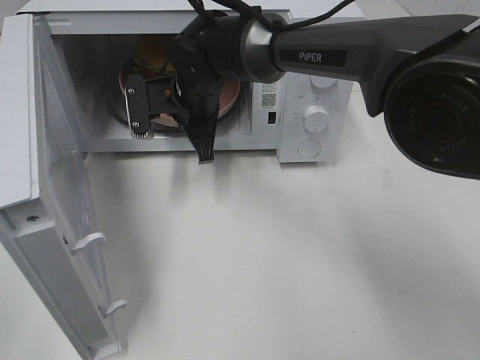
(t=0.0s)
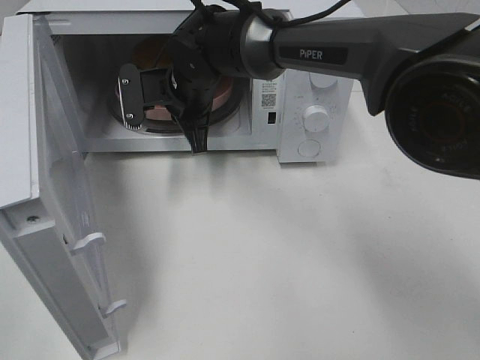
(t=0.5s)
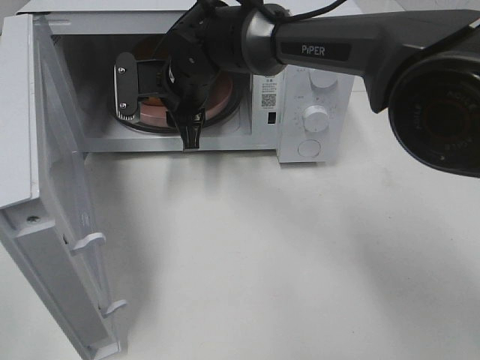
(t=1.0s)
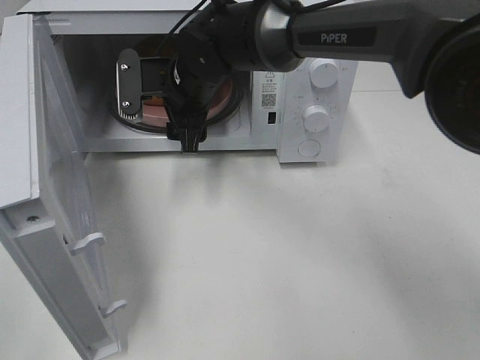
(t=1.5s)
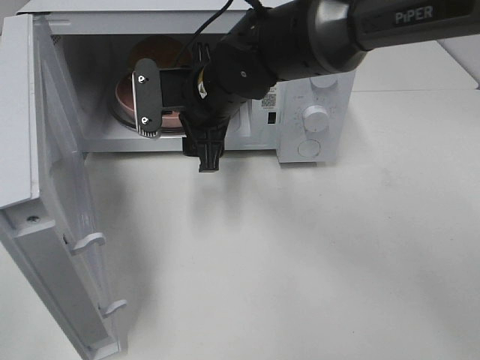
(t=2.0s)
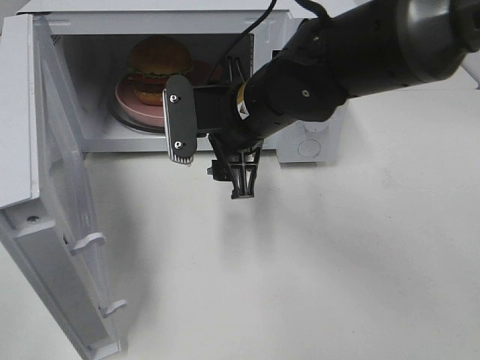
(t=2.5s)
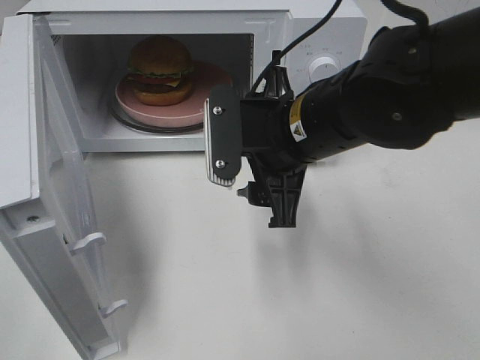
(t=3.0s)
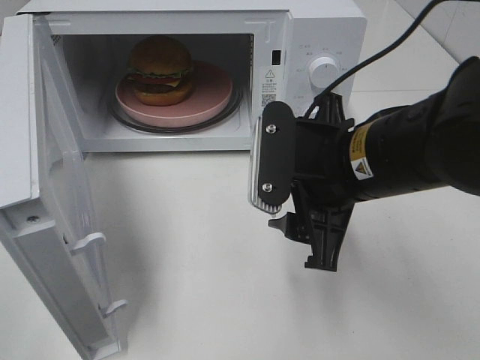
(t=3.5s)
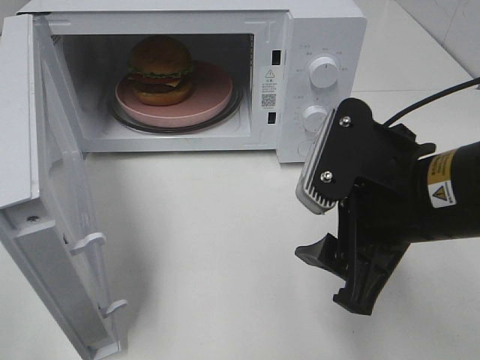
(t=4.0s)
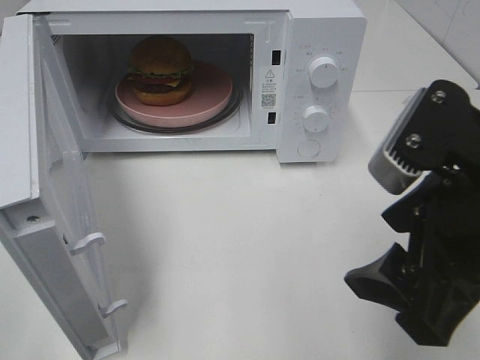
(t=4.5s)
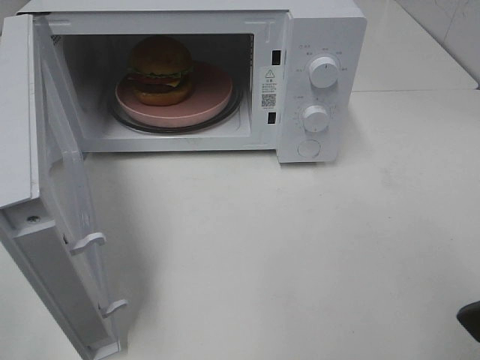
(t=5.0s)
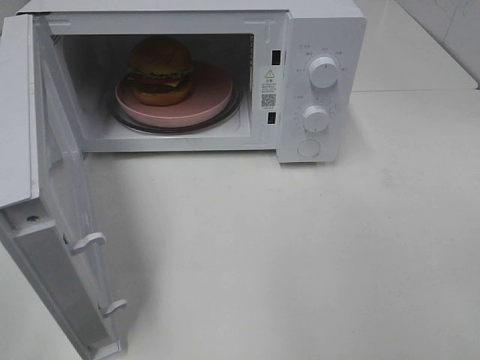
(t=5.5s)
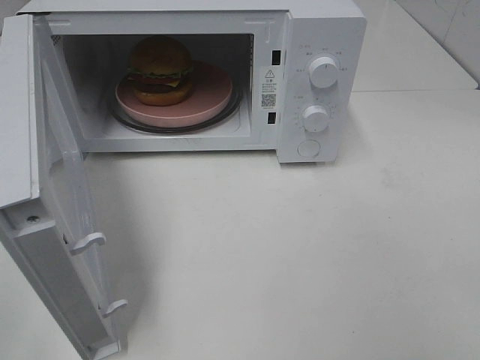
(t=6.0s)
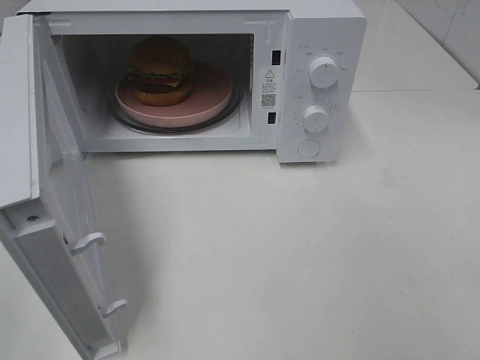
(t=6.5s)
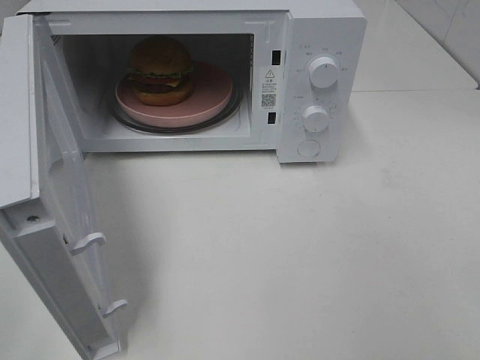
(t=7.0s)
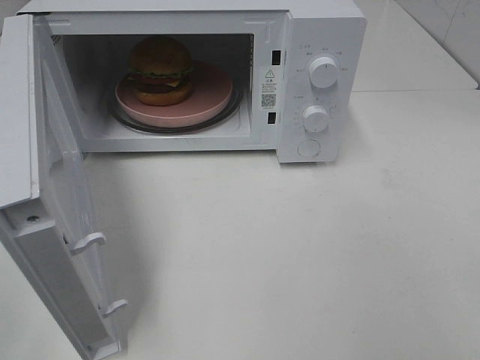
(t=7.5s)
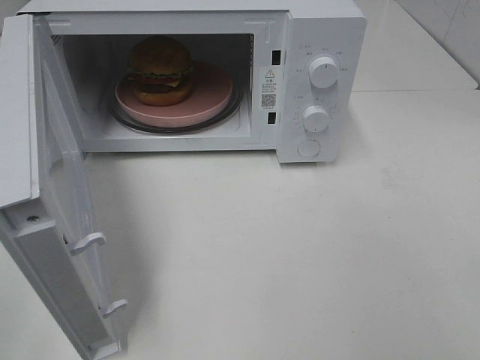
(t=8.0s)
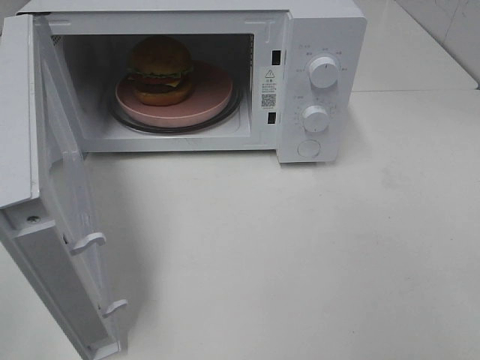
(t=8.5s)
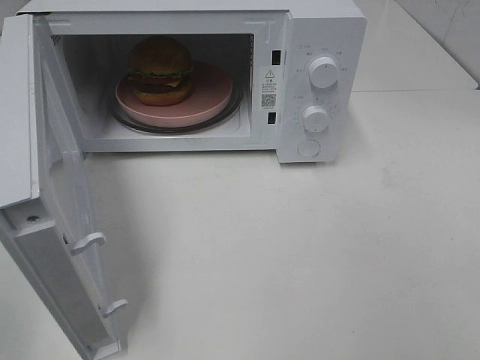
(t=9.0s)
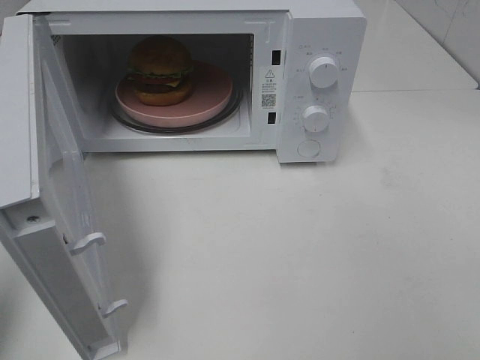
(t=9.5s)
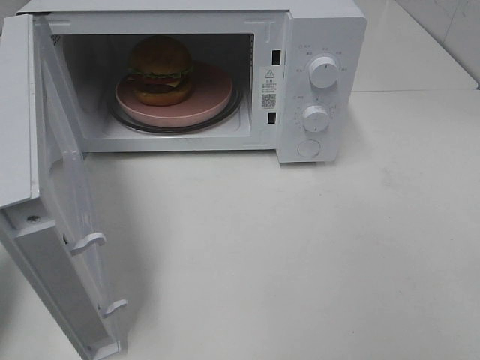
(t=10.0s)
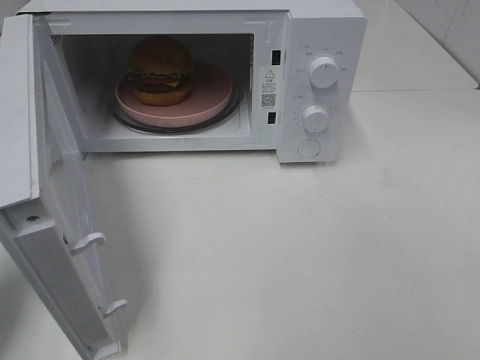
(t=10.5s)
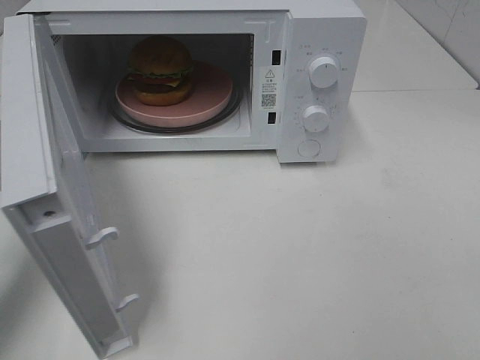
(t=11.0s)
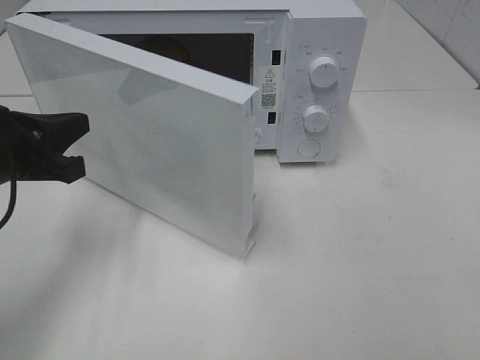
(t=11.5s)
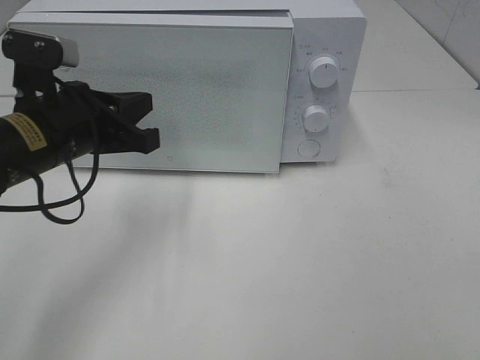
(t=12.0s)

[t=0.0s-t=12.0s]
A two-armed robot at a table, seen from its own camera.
Task of the whole recording: Heat the burger.
t=0.0s to t=2.0s: The right gripper goes some 5 cm backward, and opens up.
t=2.0s to t=4.0s: The right gripper shifts about 25 cm backward and to the right.
t=4.0s to t=6.0s: The right gripper goes approximately 20 cm backward, to the right and upward.
t=8.0s to t=10.0s: The left gripper goes approximately 15 cm forward, and closes its fingers.
t=10.0s to t=12.0s: The left gripper heads to the right and forward, covering approximately 20 cm.

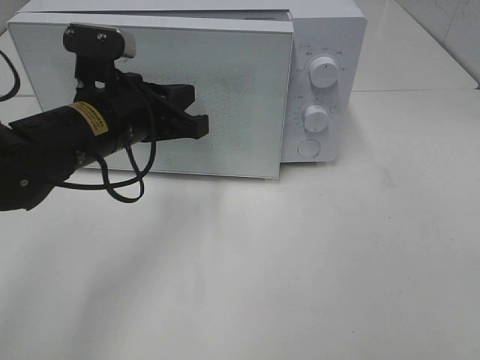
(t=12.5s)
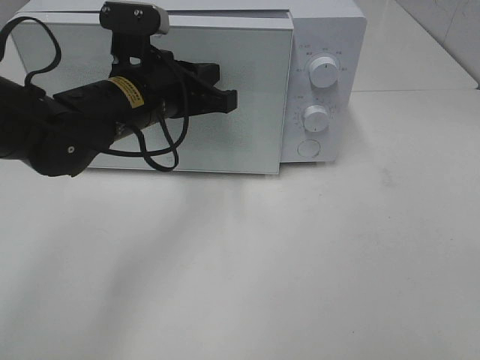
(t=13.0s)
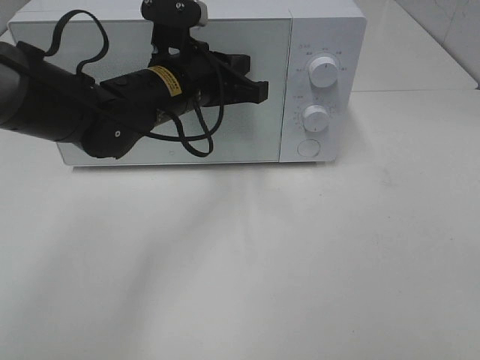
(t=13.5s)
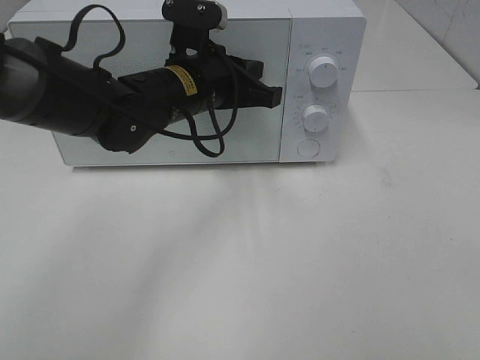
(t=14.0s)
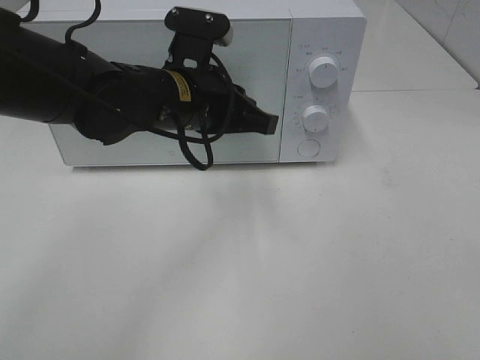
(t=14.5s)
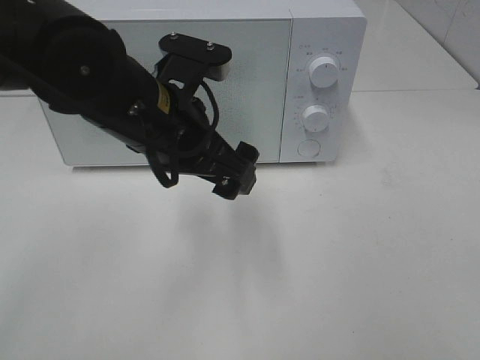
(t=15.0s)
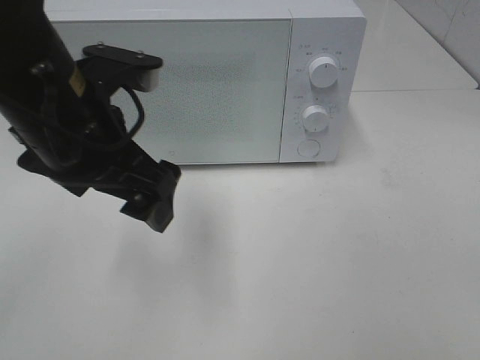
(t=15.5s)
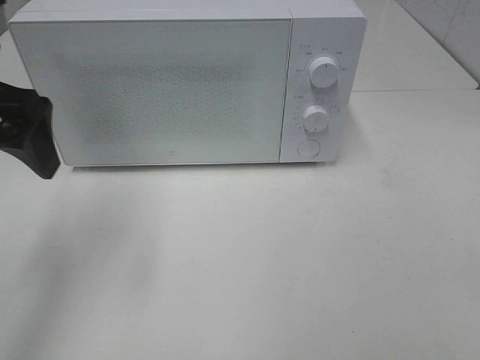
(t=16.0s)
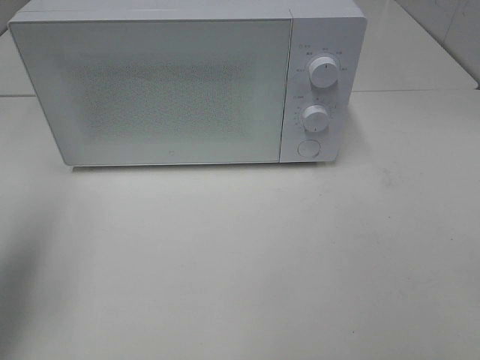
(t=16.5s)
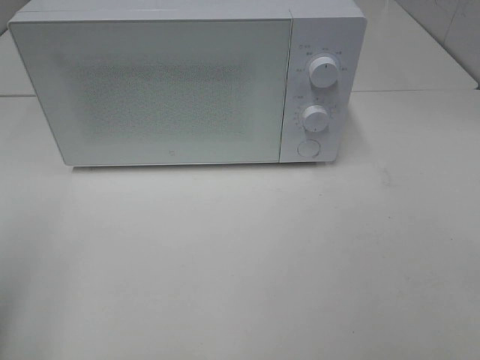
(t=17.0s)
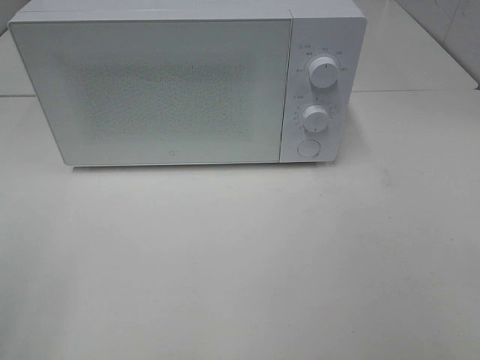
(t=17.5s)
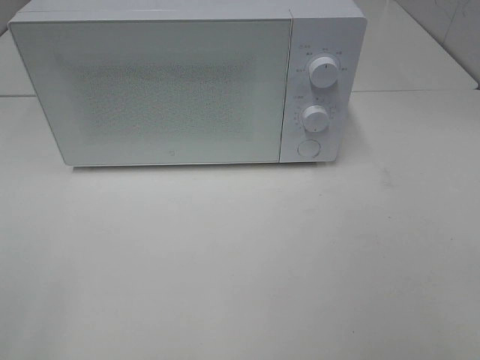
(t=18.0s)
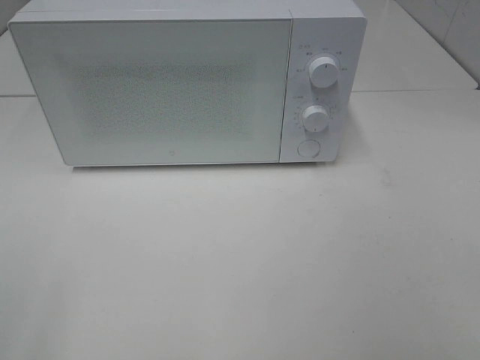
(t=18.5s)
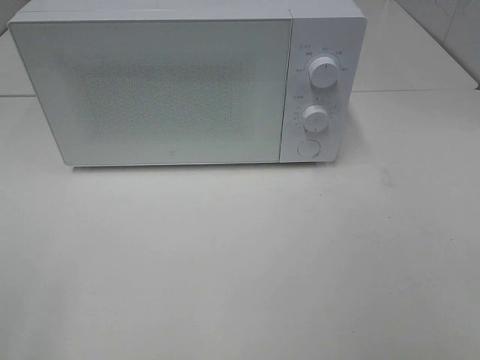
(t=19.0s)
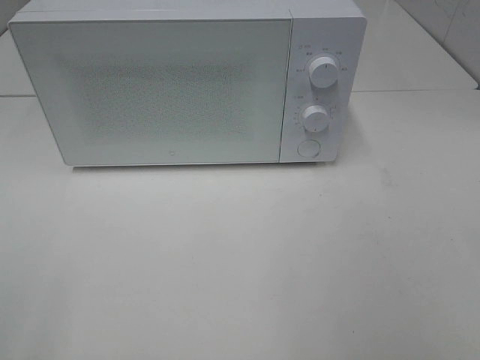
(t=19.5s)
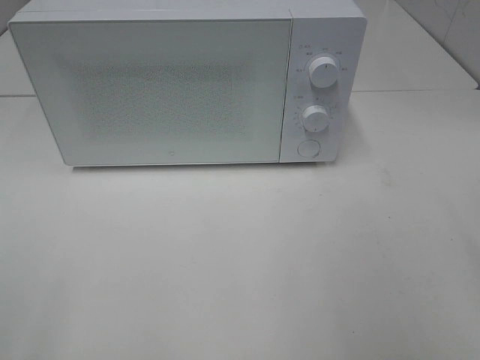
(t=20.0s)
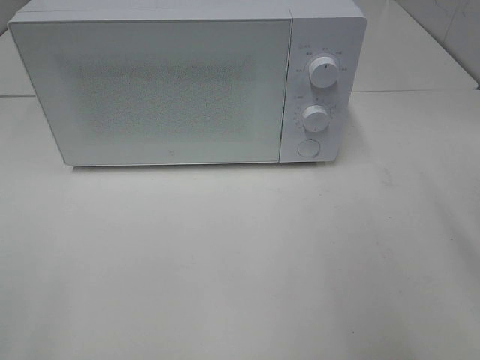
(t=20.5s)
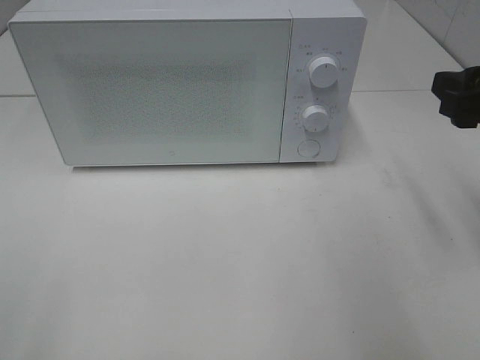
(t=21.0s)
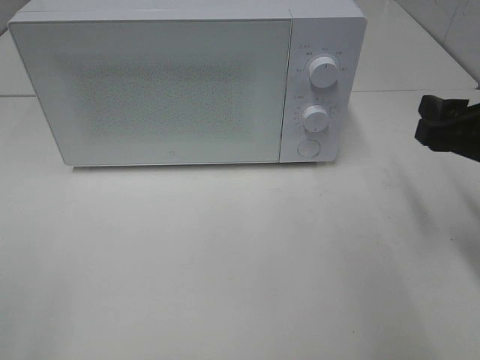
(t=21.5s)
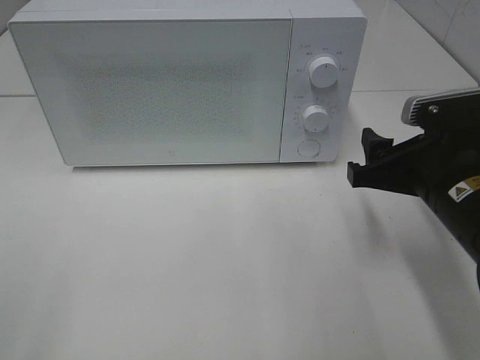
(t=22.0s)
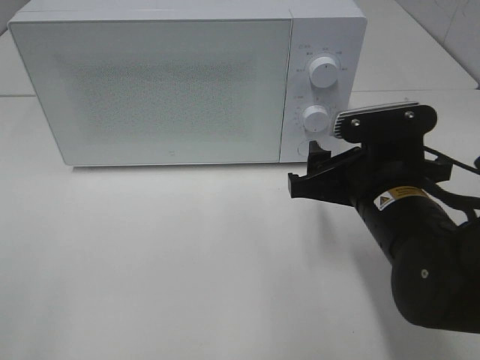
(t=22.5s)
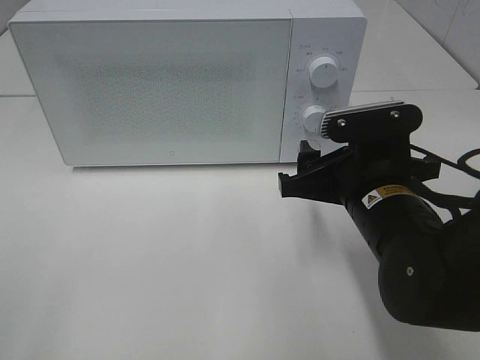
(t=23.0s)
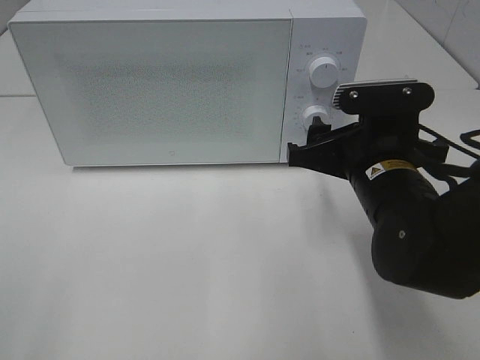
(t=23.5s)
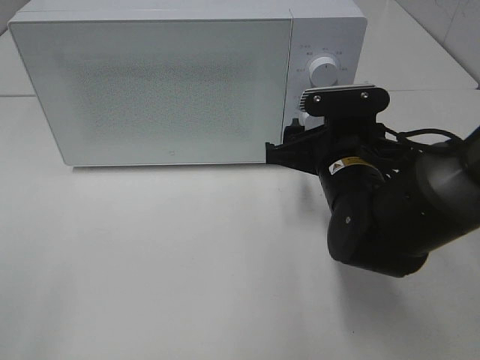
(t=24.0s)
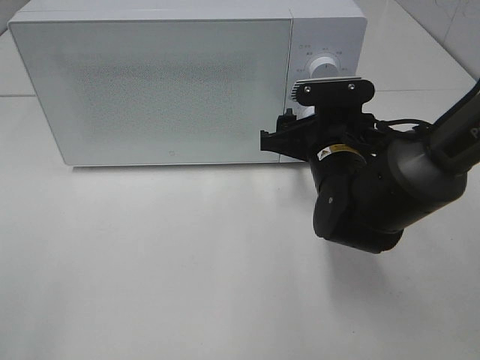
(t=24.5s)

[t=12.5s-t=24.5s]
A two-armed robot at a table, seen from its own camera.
Task of the whole recording: Heat the burger.
t=12.5s to t=14.5s: The left gripper is displaced to the right by approximately 10 cm.
t=14.5s to t=16.5s: The left gripper goes roughly 30 cm to the left and backward, and opens up.
t=16.5s to t=18.5s: The left gripper heads backward, covering roughly 20 cm.
t=20.5s to t=22.5s: The right gripper travels downward, to the left and forward by some 20 cm.
t=22.5s to t=24.5s: The right gripper travels forward by roughly 10 cm.

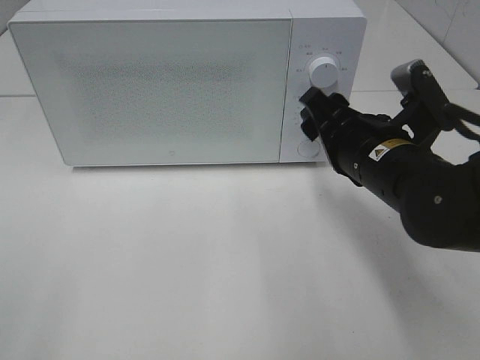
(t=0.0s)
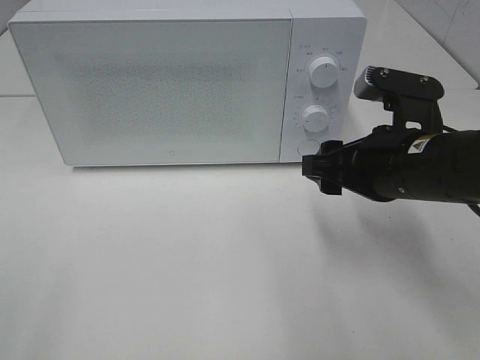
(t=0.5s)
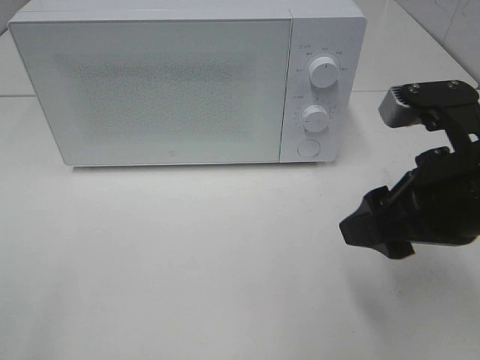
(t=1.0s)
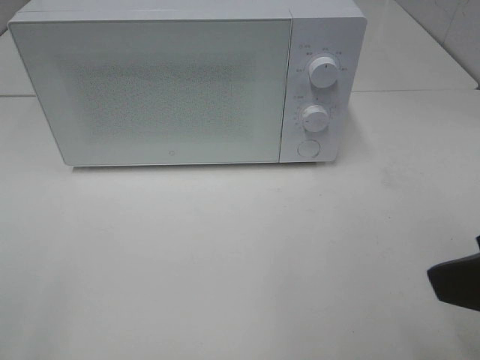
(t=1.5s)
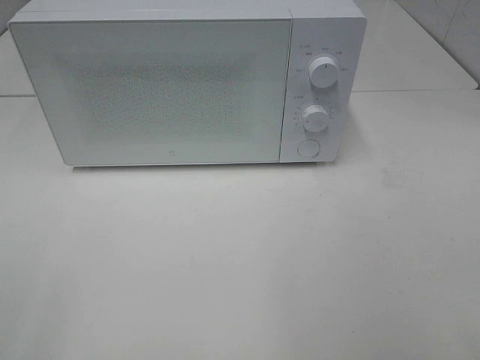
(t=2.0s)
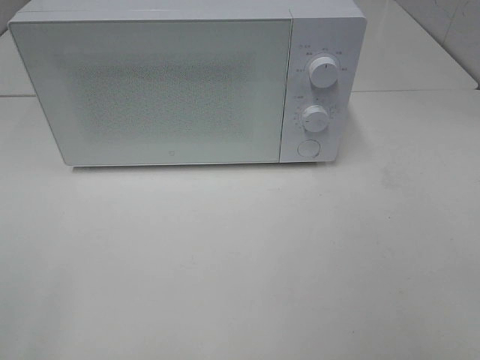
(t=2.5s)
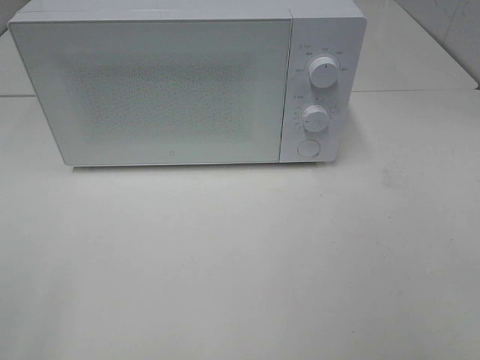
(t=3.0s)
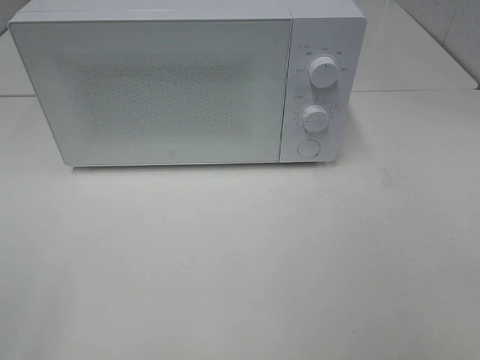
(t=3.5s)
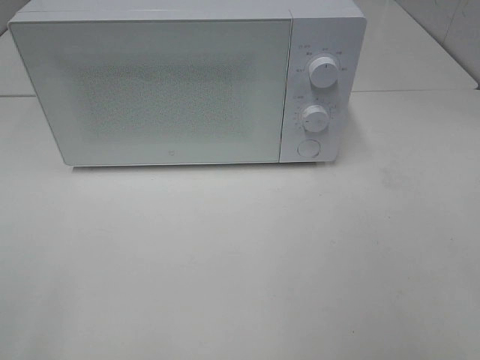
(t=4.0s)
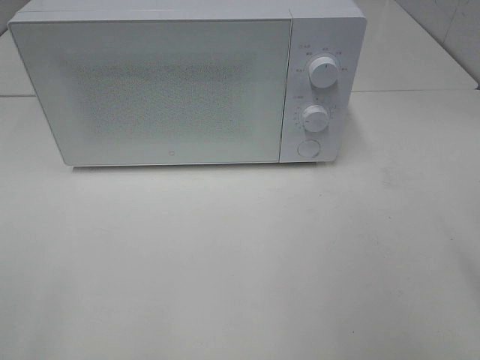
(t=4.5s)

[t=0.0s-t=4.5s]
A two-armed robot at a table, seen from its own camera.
Task of the whole recording: Heat the burger.
t=0.0s to t=2.0s: The right gripper travels backward, upward and to the right by approximately 30 cm.
